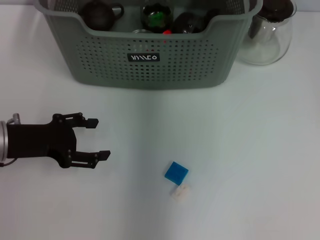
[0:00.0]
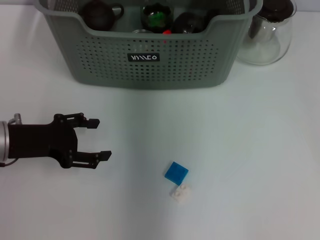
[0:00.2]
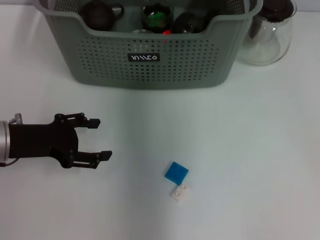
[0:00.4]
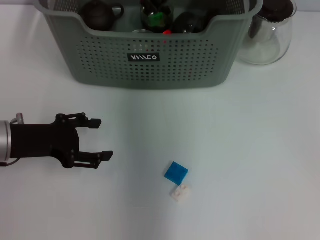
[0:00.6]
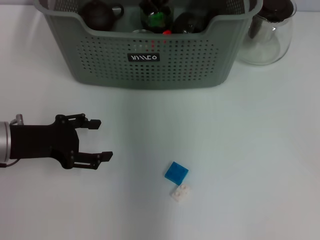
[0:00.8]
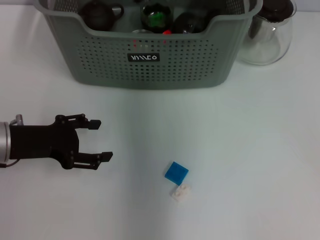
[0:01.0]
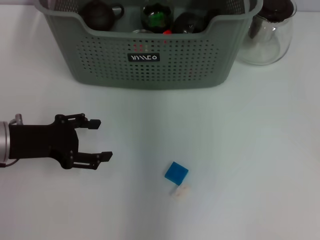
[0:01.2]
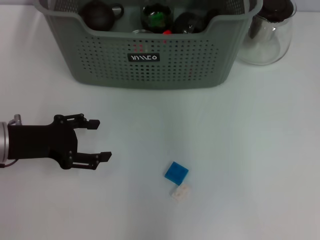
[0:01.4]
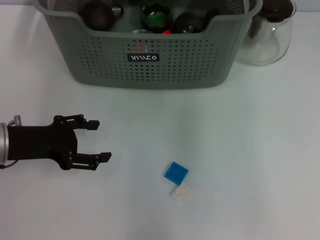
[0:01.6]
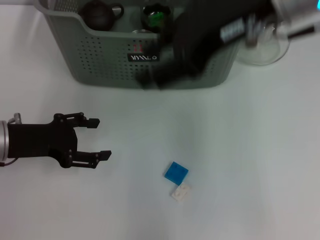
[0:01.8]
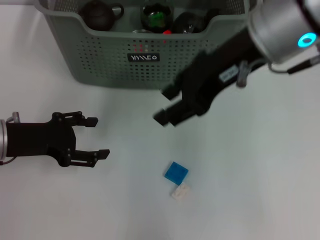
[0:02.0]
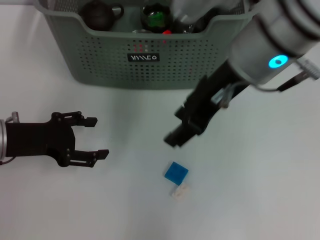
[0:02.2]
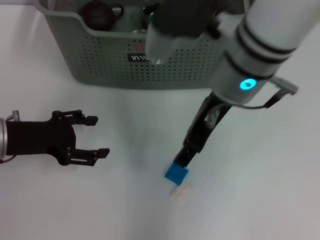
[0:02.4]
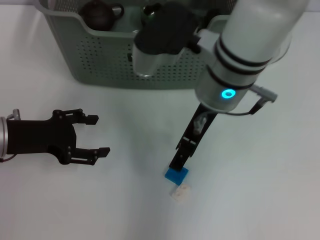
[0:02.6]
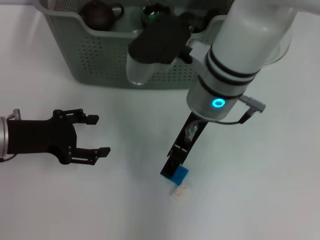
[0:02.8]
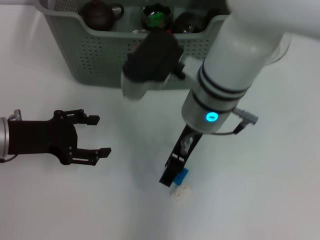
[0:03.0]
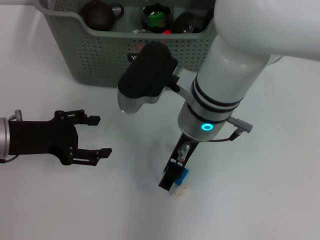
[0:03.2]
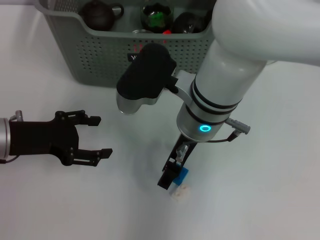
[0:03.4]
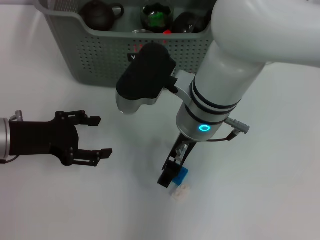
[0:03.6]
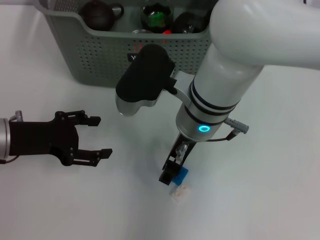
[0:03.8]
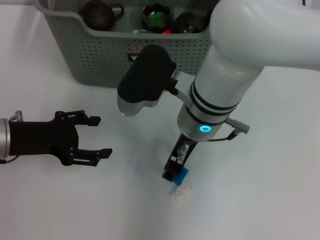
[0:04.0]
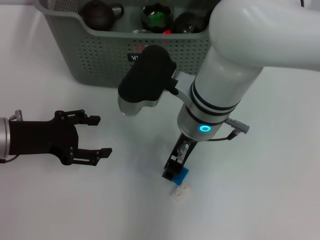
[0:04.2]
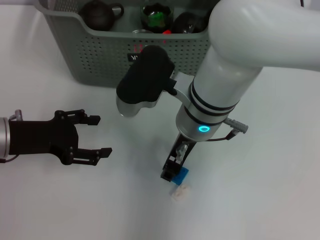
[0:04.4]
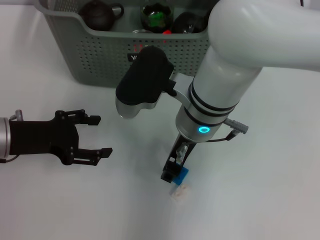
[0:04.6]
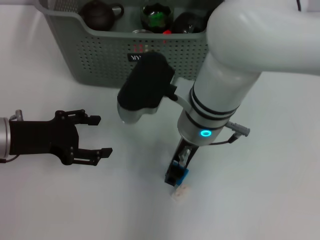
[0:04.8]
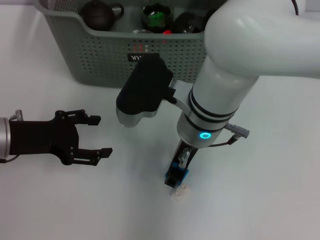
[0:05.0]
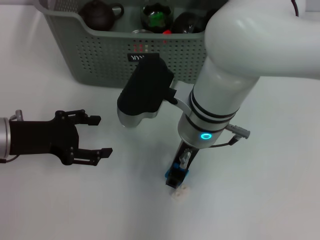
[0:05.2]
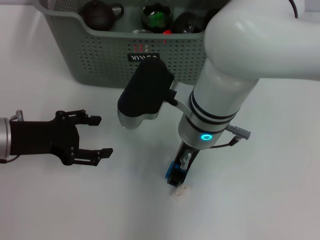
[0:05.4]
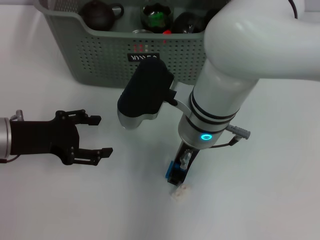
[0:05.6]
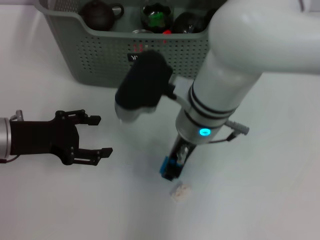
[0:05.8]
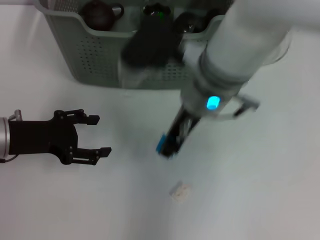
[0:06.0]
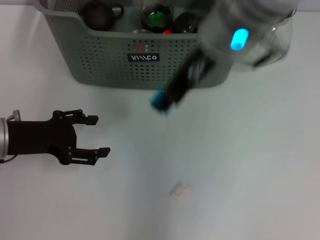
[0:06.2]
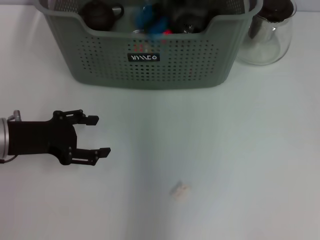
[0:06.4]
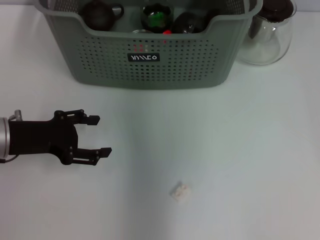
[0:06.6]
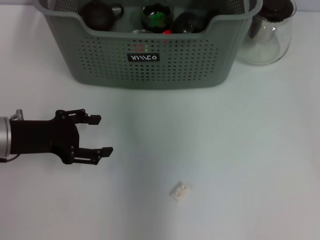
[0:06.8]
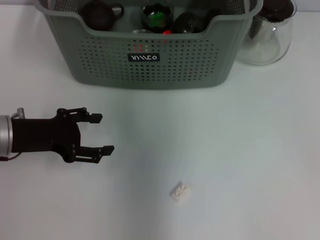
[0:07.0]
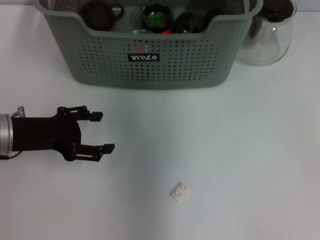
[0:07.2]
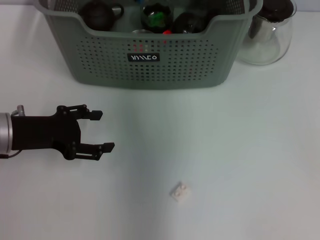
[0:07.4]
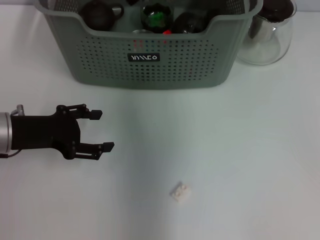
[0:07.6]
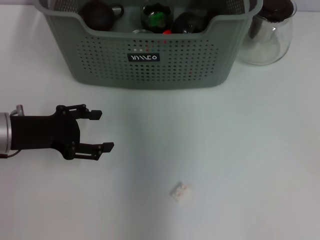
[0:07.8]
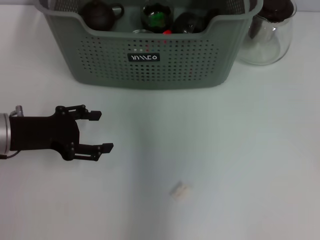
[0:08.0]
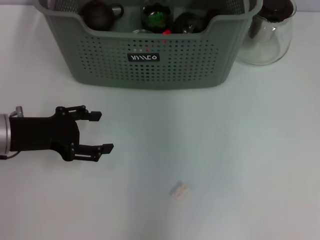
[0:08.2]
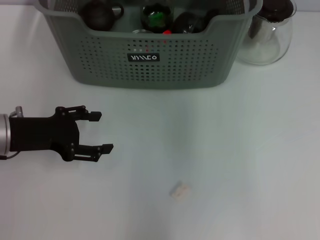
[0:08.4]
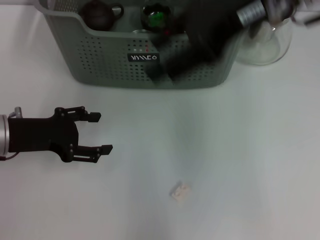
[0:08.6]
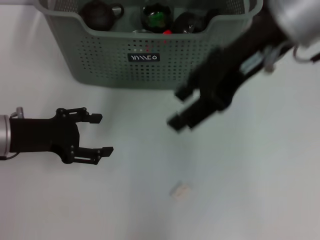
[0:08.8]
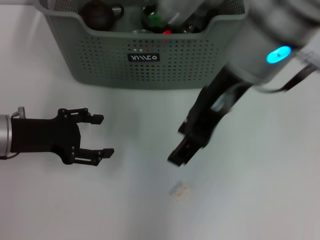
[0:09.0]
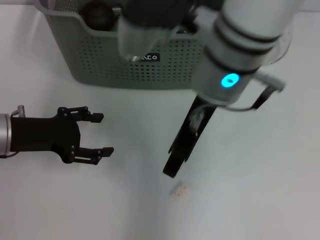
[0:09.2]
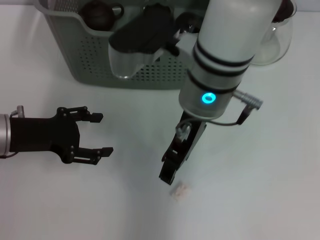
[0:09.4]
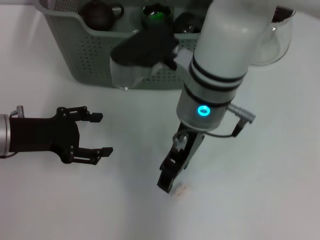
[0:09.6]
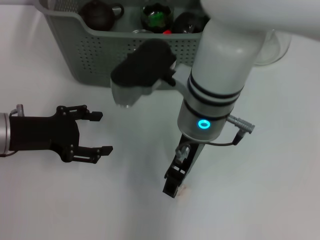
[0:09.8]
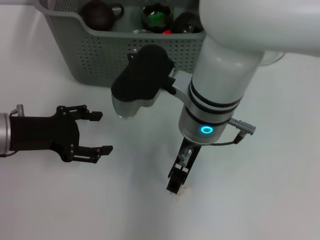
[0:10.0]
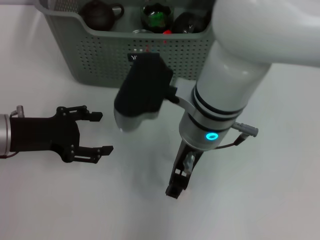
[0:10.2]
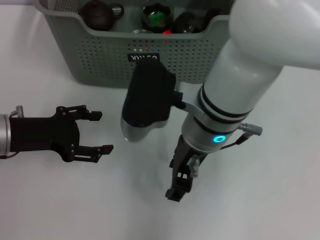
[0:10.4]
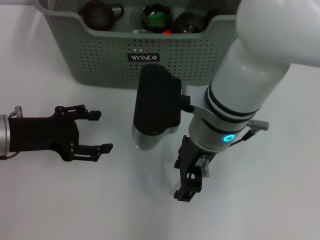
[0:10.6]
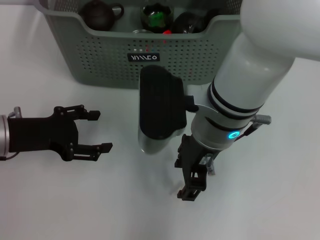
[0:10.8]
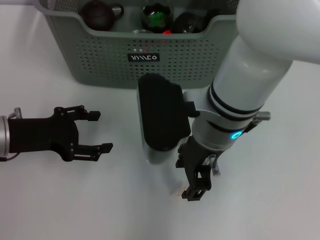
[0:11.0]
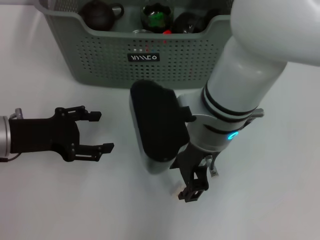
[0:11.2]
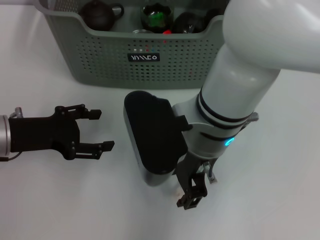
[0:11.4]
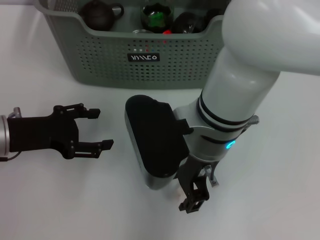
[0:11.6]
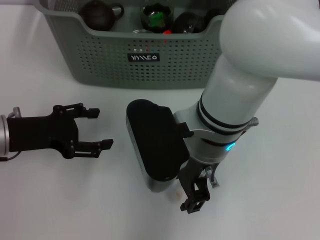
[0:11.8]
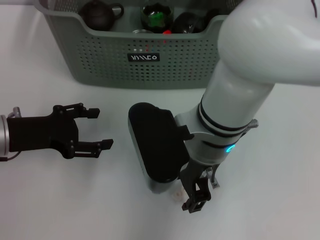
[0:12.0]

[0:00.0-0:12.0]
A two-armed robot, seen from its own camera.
Task of the whole recording: pick up the teacup on the table and place it into the storage bin, pick up the block on the table and place it into the storage bin.
Step, 0.8 to 5.6 s: Grasp the dark blue block with right gripper.
Step, 5.8 to 7.6 s: Place the dark blue block in the storage box with right gripper.
0.0 to 1.6 s: The right gripper travels backward by roughly 10 cm, and opens its fingers.
1.6 to 3.0 s: The right gripper moves downward and to the left, approximately 20 cm, and opens up.
3.0 to 6.0 s: The grippers stay close to where they were, moving slightly.
6.0 to 7.6 s: The right gripper heads forward and upward, covering roughly 15 cm.
7.6 to 9.0 s: The right gripper shifts some 15 cm backward.
9.0 to 10.4 s: The right gripper moves downward, some 10 cm.

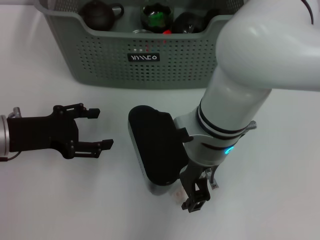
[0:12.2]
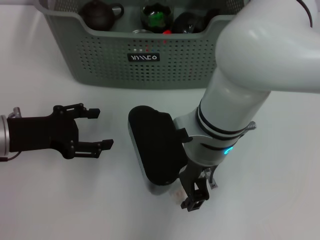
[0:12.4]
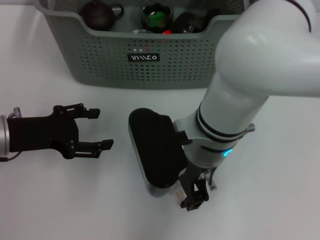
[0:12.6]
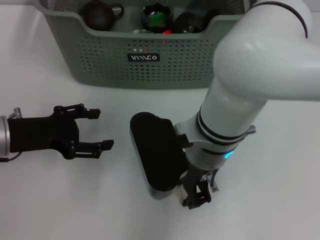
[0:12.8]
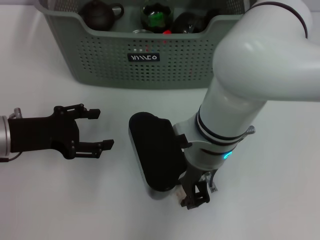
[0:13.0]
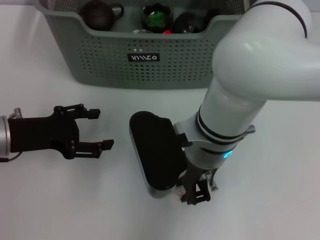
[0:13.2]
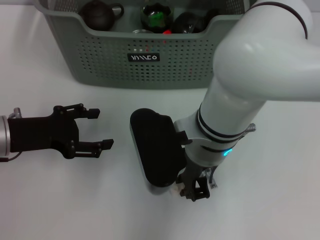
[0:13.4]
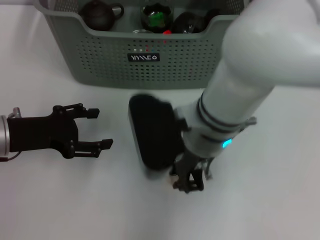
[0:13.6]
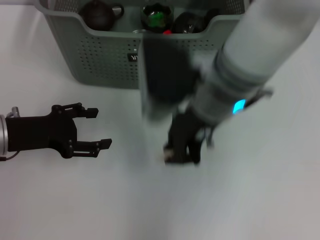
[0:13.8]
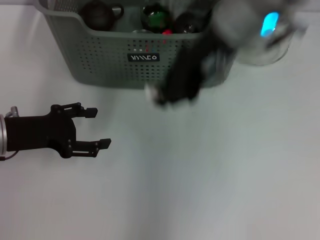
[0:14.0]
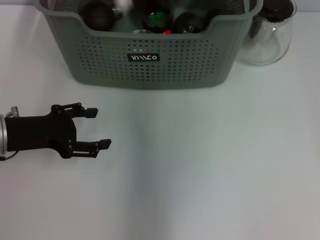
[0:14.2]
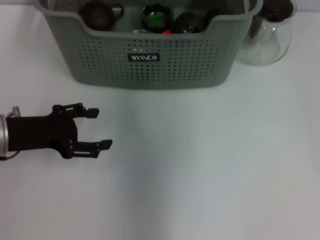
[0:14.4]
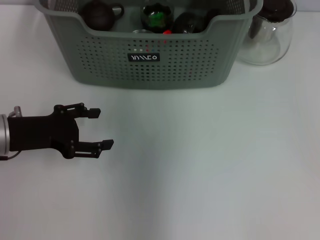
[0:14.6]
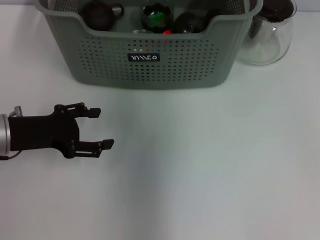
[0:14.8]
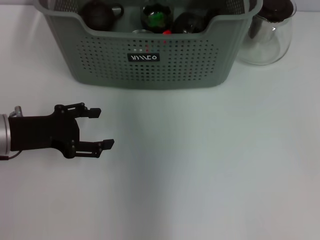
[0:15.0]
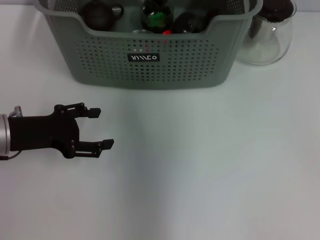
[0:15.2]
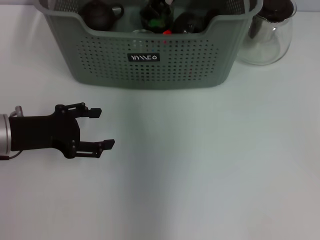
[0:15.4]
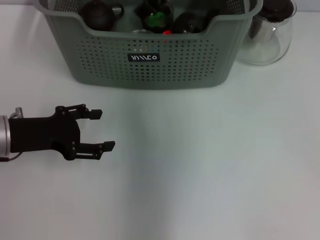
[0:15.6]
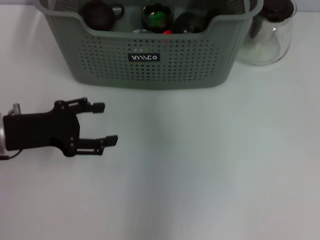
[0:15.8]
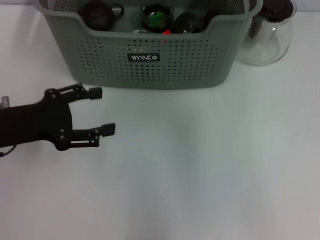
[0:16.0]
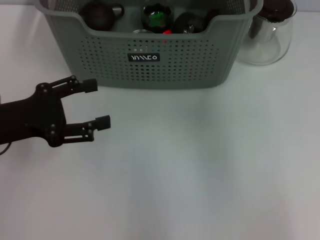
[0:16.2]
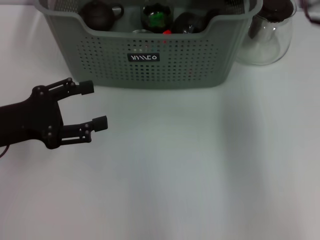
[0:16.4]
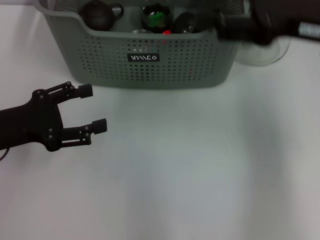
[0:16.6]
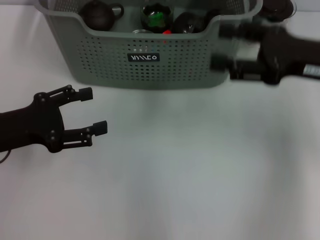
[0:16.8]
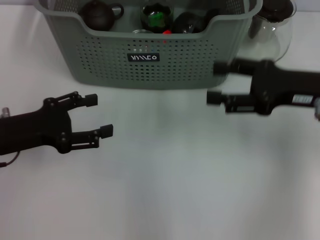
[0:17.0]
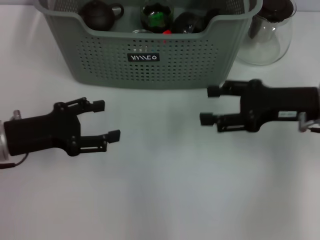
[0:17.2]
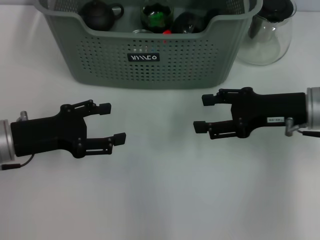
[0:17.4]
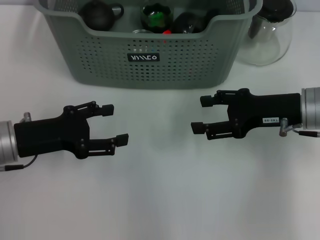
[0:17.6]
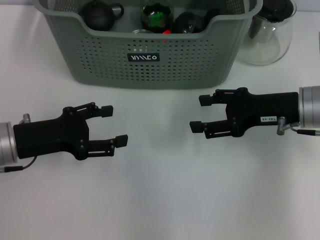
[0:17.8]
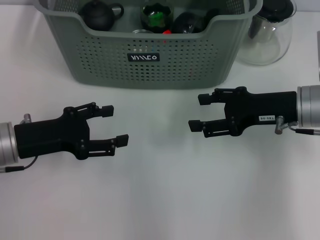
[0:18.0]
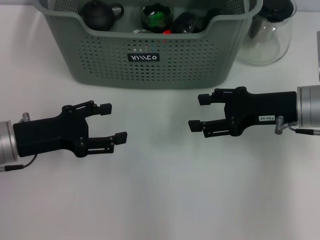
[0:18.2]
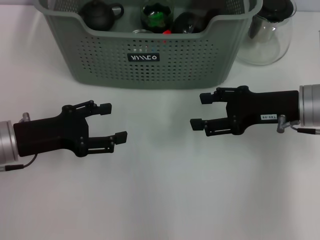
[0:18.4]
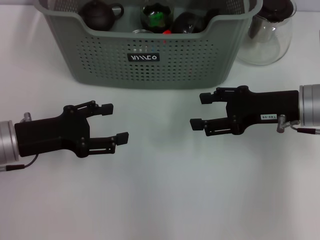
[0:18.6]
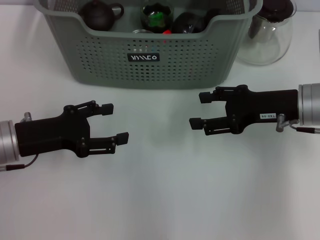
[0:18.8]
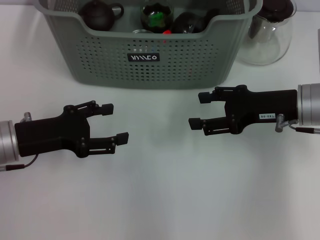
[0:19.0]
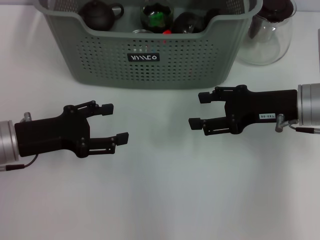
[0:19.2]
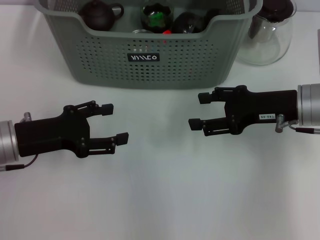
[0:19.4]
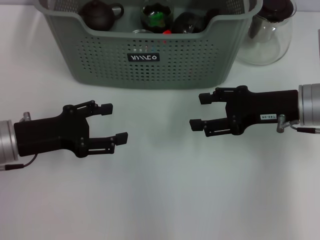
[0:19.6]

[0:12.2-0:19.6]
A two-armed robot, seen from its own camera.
Task of the whole recording: pick up the teacup on the table and place it into the storage bin, pick up the block on the table and place it into the storage bin.
Step, 13.6 to 15.2 s: Place the white block in the storage box with right gripper.
12.2 to 13.6 s: The right gripper closes.
13.6 to 15.2 s: The right gripper goes roughly 20 cm forward and upward.
15.2 to 16.6 s: The right gripper shifts roughly 25 cm to the right and backward, and opens its fingers.
16.6 to 18.2 s: The right gripper moves downward, roughly 10 cm.
18.2 to 19.6 s: Both grippers stay put.

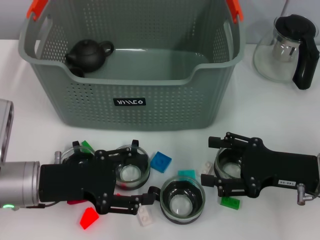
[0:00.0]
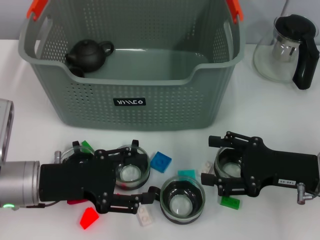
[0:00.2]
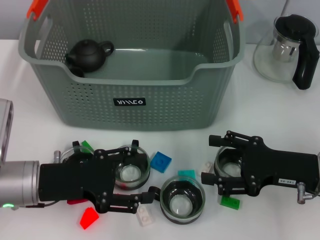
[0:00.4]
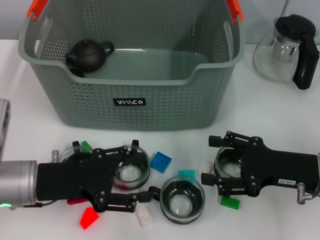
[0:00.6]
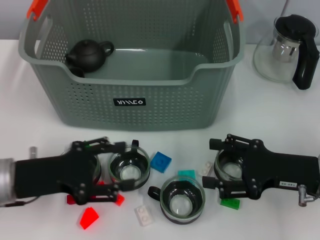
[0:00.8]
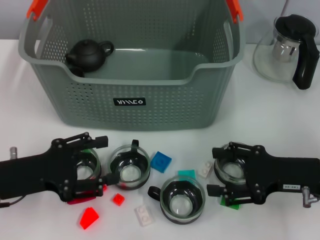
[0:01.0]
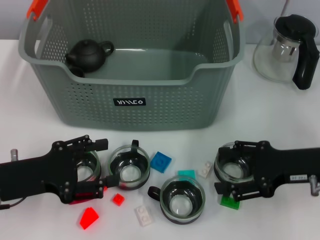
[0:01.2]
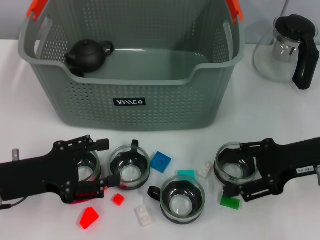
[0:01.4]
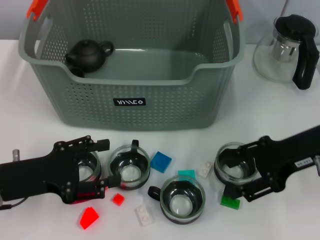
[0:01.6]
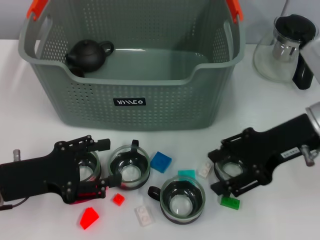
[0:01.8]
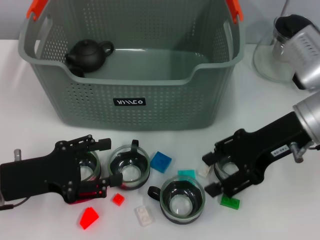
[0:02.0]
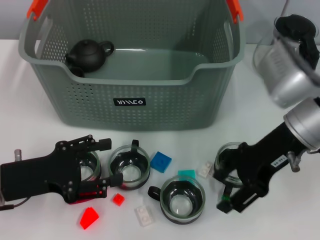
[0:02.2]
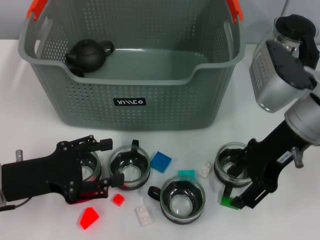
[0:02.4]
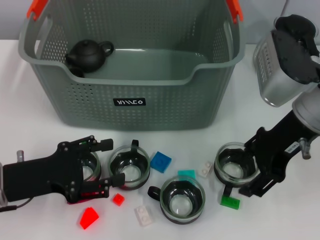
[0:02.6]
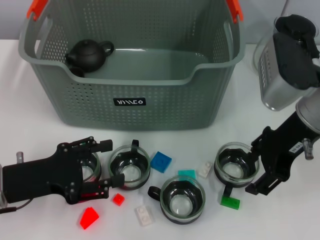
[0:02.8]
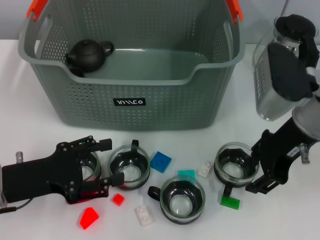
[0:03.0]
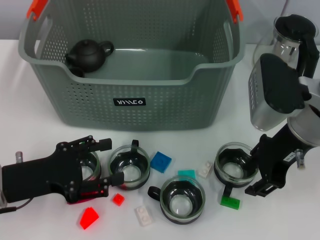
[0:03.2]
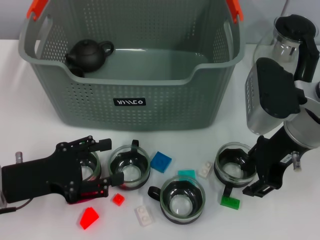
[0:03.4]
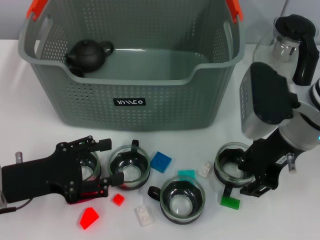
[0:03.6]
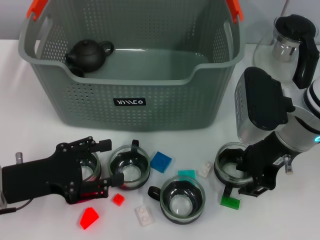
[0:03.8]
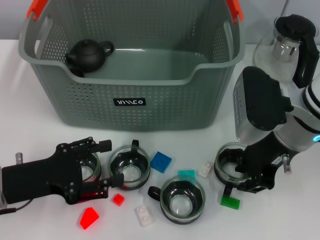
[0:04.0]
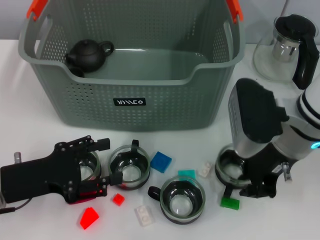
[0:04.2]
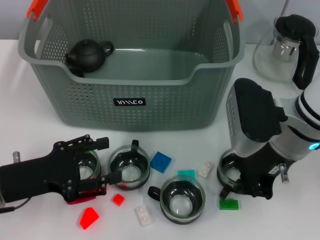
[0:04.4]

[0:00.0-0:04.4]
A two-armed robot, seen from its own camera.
Task of the whole recording: pick up the teacup on the table and place it into the storage bin, pick up the block on the table and place it into the storage bin.
Step, 0.0 to 4.2 s: Grasp the cup with right gripper.
0.0 to 1.4 s: The right gripper shifts by approximately 5 cm.
1.4 to 3.0 s: The right gripper shifts approximately 10 cm to the left and upward.
3.0 to 4.4 s: The right gripper closes its fingers.
